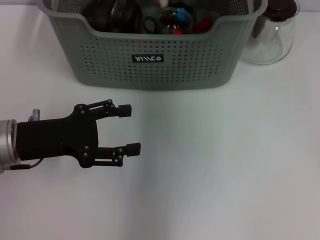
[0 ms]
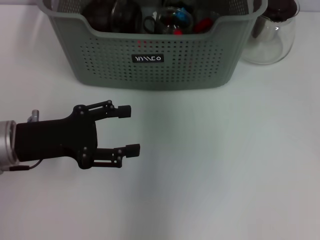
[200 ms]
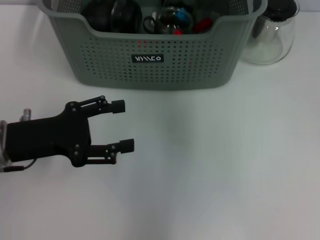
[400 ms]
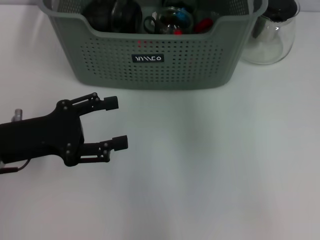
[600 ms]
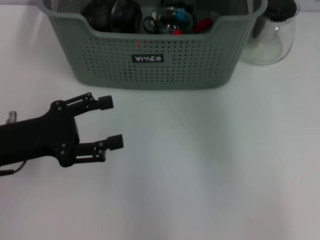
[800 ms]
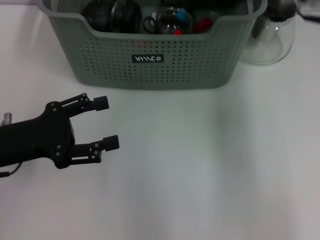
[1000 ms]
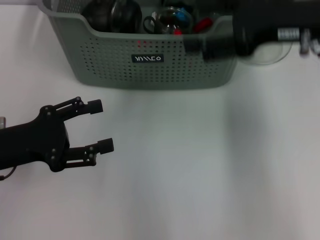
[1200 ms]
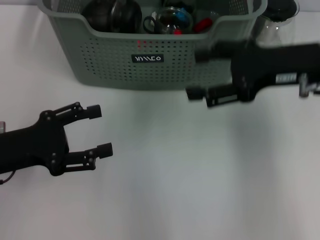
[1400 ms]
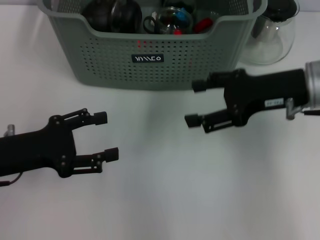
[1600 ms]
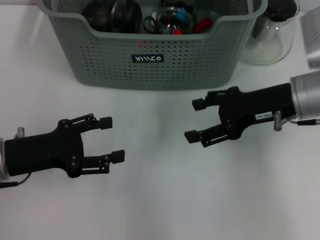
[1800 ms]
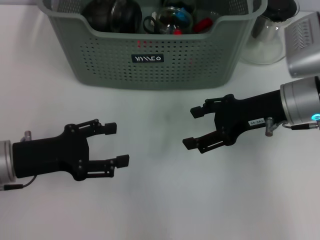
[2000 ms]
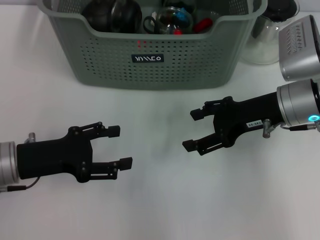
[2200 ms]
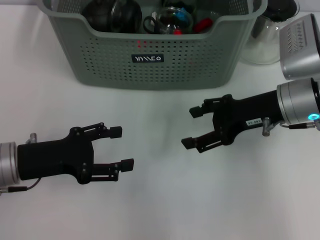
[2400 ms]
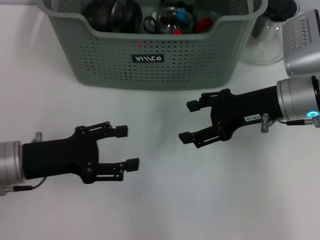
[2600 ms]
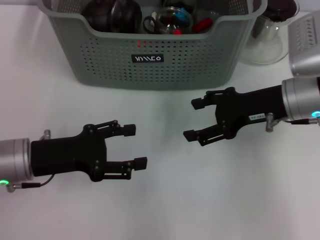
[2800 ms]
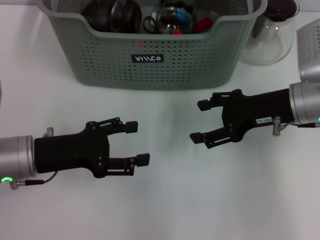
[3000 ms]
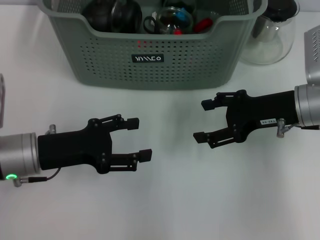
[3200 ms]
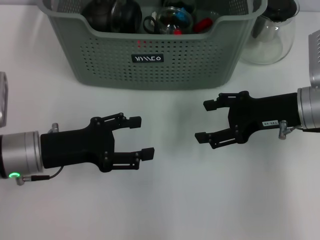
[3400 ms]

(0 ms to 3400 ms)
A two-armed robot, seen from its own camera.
Task of the whole recording: pick up the teacup on the table and place it into the storage bin, pick up the block on the table and place it into the storage bin.
0 ms - 1600 ms: The right gripper moves backward, to the right and downward, about 20 cm, and opens up.
1600 ms - 3400 ms: The left gripper moves roughly 5 cm.

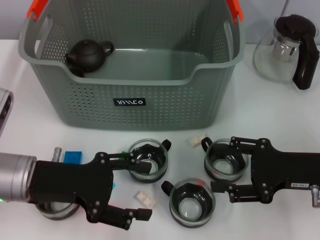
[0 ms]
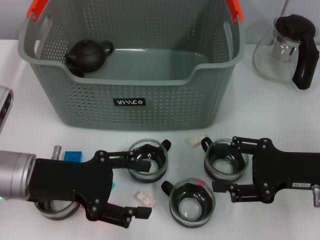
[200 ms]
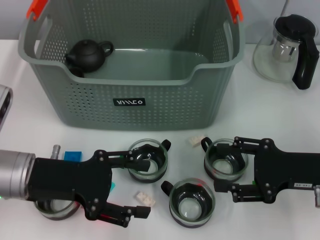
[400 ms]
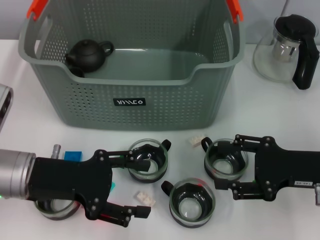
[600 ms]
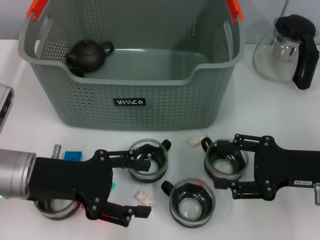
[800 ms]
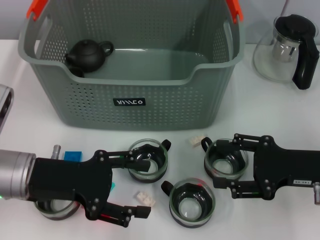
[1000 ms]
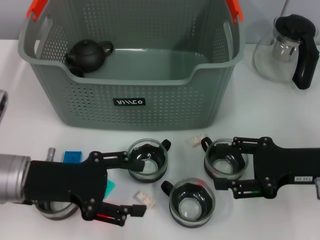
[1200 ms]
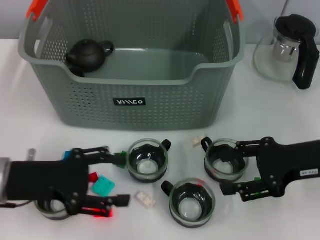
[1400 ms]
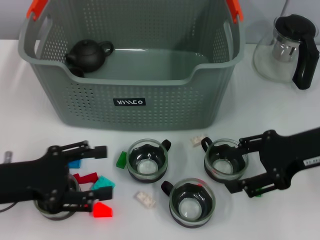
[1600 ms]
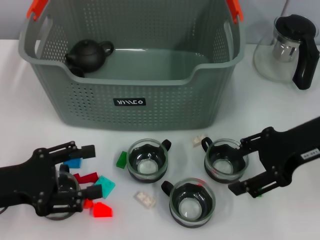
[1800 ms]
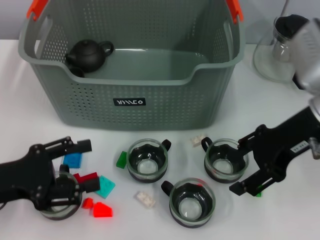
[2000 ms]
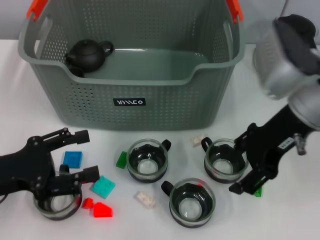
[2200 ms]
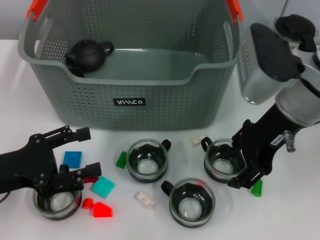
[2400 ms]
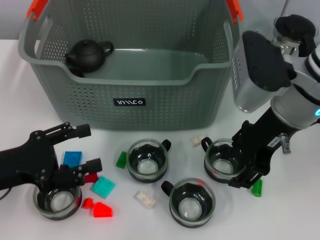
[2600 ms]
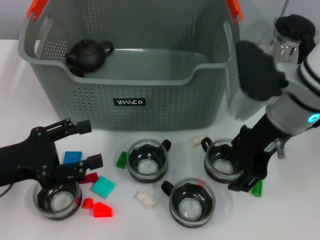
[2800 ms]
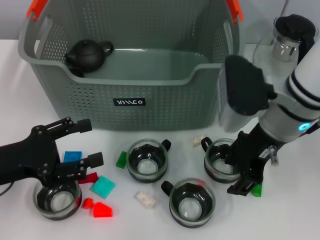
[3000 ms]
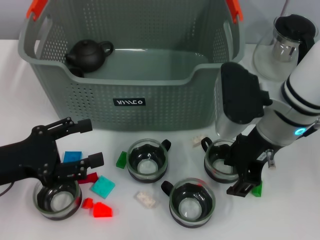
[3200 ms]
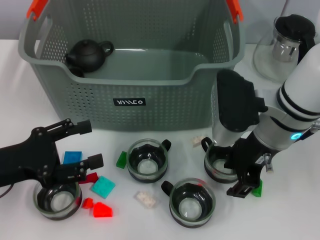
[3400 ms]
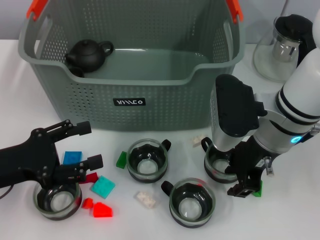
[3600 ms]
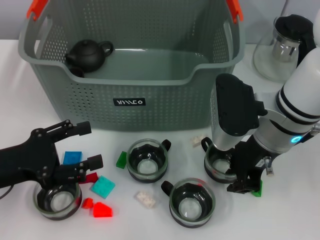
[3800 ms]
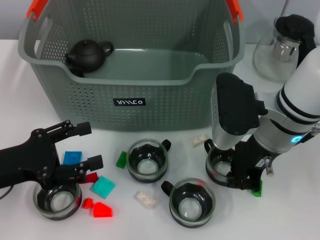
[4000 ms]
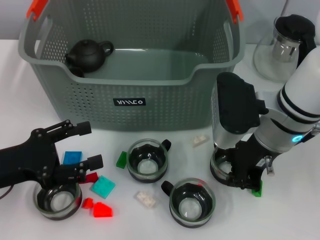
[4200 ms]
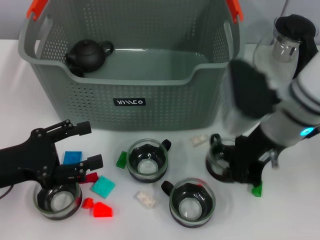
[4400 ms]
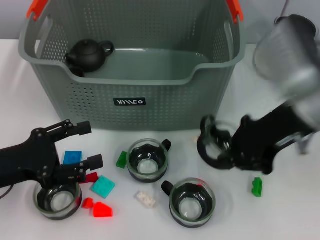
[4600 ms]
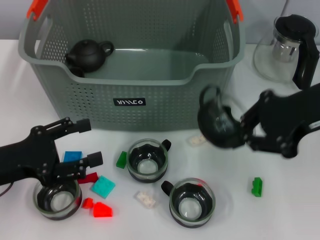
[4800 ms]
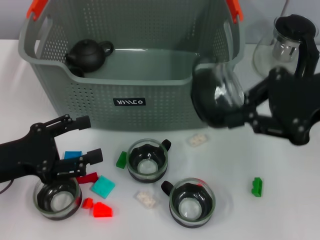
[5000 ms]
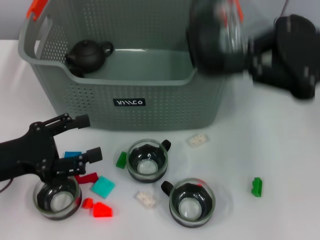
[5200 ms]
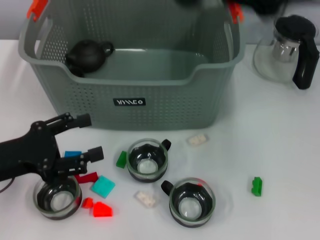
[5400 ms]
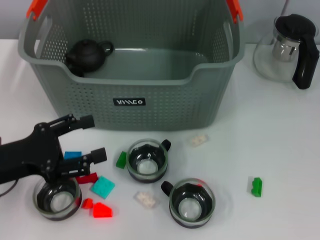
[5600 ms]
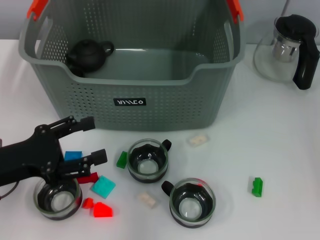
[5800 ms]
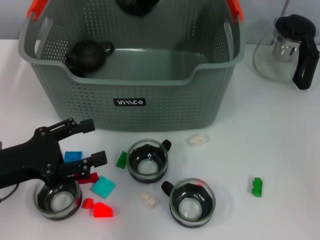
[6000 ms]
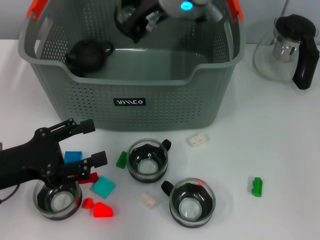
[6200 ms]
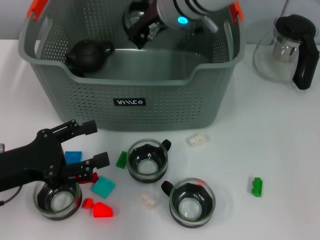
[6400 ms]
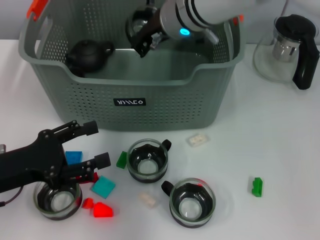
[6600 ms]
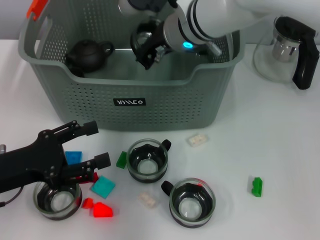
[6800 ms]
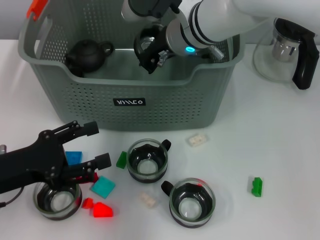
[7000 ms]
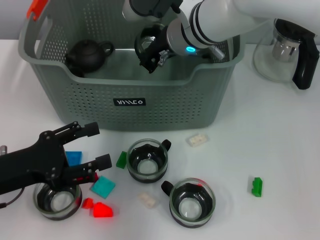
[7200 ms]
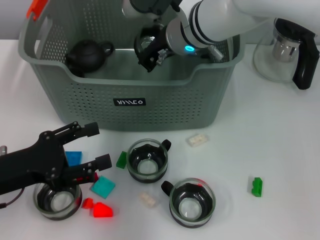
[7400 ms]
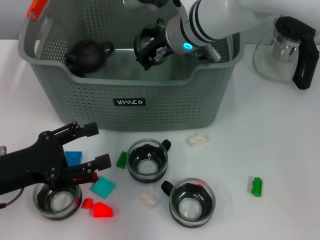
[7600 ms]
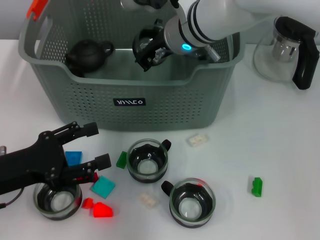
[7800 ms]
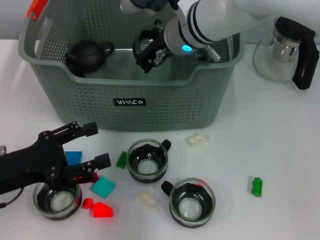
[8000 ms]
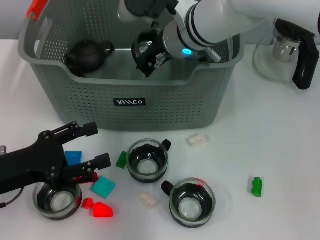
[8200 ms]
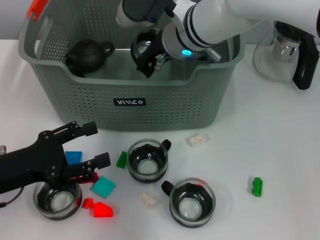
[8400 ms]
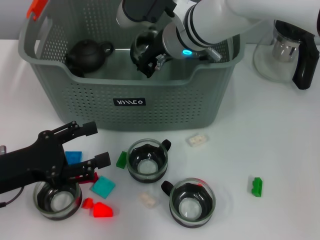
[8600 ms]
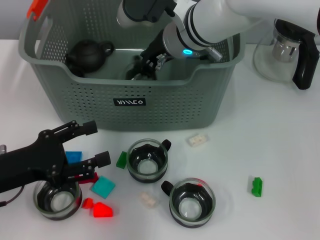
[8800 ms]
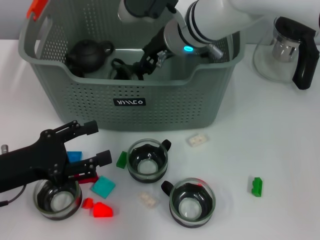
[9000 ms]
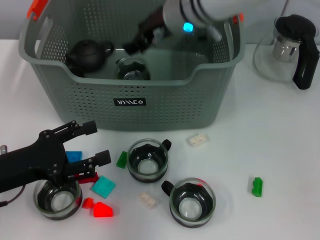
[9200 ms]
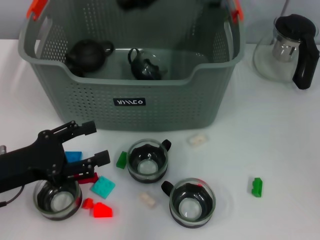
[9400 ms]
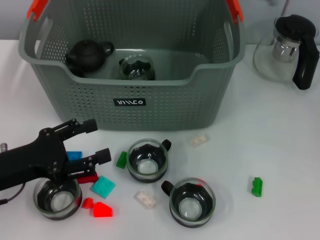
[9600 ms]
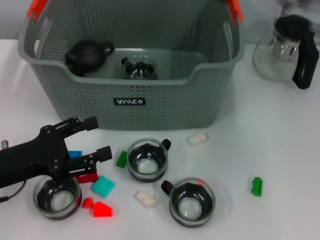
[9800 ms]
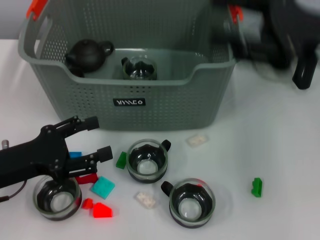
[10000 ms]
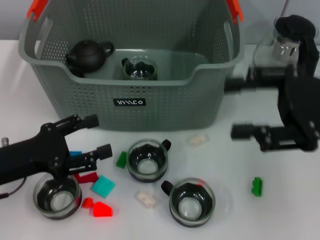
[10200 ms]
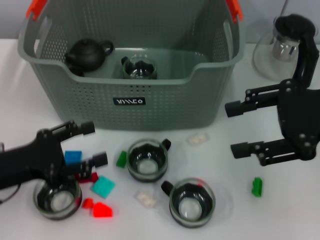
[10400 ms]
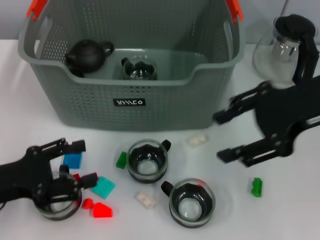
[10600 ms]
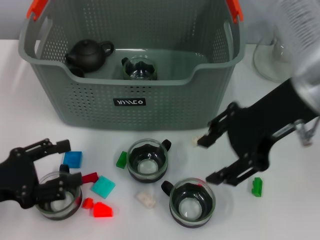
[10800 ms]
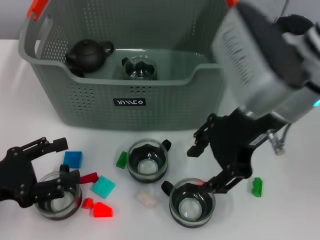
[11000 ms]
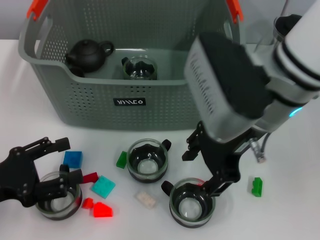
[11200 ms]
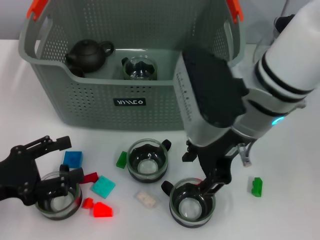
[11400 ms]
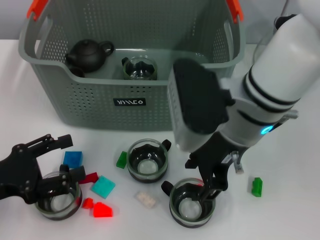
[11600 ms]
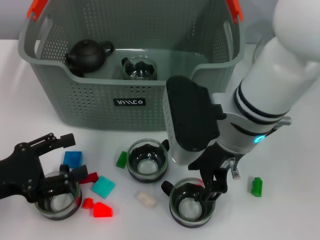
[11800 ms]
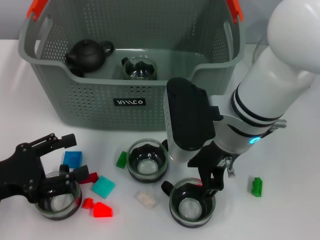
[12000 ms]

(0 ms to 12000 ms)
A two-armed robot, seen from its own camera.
Task of the whole recording: pick up the teacup on the table and place it into the storage bin, pick up the block on the table and place it into the storage bin.
Step, 0 ms - 4000 ms: Grasp the cup with right gripper.
Step, 4400 ms - 9400 ms: Place the cup in the storage box with right gripper.
0 ms - 1600 ms: The right gripper goes some 5 cm upward. Meanwhile the left gripper goes some 5 cm to the left.
1600 ms - 3000 ms: The right gripper moves to the left, roughly 10 cm.
3000 ms - 4400 ms: The right gripper closes.
4400 ms - 6000 ms: The right gripper shifts about 20 cm upward, to the left and forward.
6000 ms - 7600 ms: The right gripper heads downward, covering approximately 10 cm.
7600 ms - 9000 ms: The grippers stay close to where they were, moving slightly.
9000 ms - 10400 ms: The right gripper goes roughly 25 cm to the right and backward, and opens its fingers.
10400 ms - 12000 ms: The right gripper is displaced to the left by approximately 20 cm.

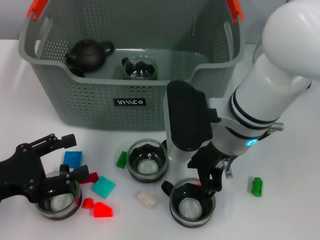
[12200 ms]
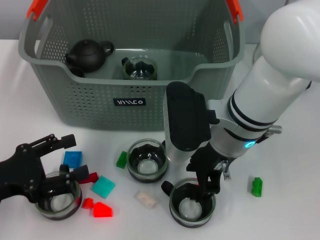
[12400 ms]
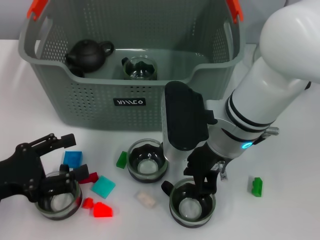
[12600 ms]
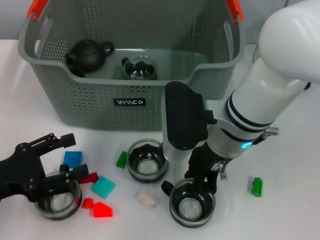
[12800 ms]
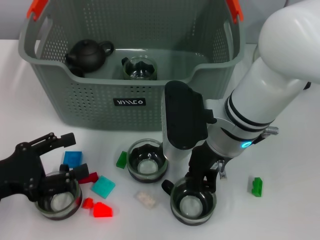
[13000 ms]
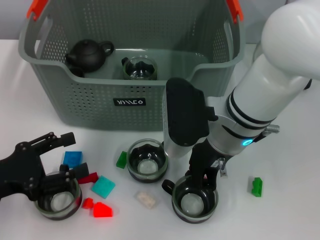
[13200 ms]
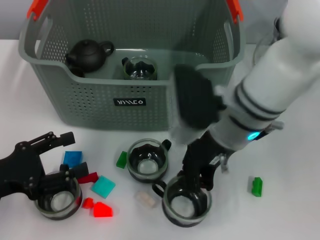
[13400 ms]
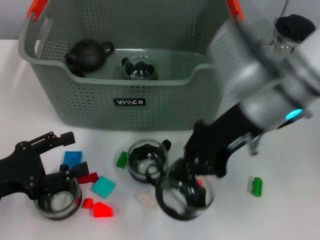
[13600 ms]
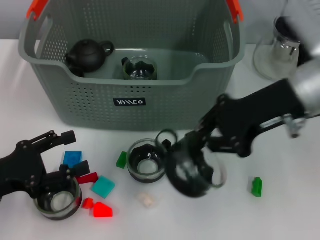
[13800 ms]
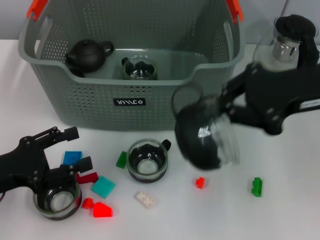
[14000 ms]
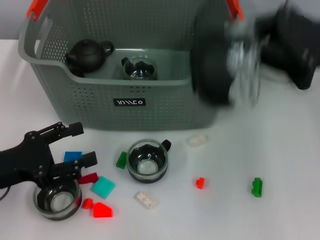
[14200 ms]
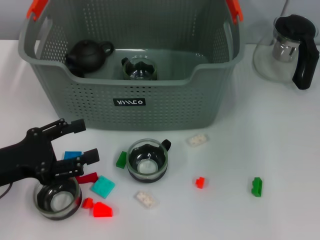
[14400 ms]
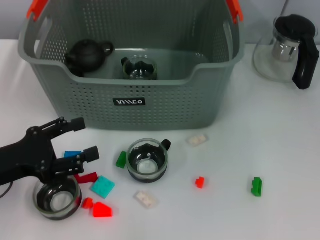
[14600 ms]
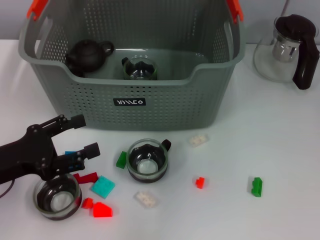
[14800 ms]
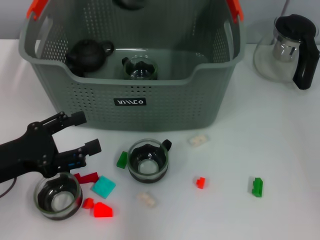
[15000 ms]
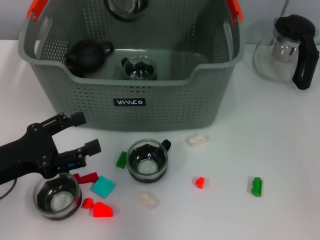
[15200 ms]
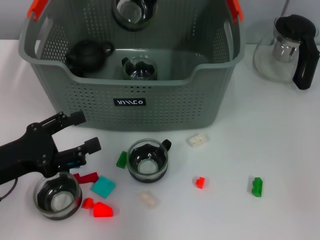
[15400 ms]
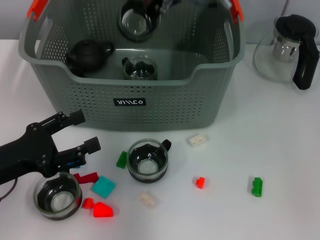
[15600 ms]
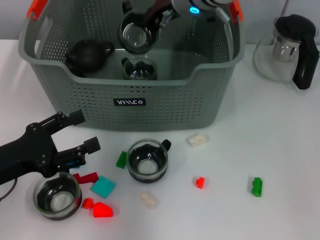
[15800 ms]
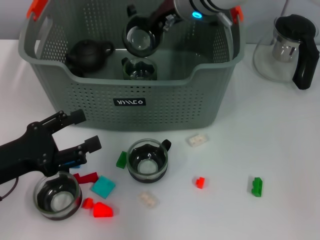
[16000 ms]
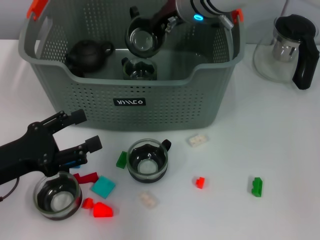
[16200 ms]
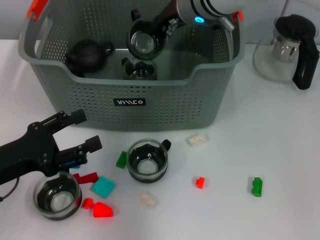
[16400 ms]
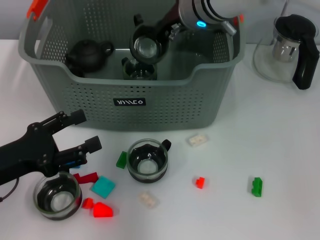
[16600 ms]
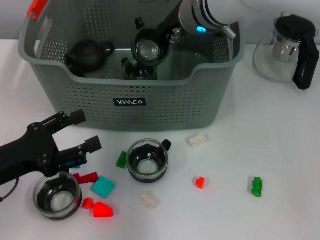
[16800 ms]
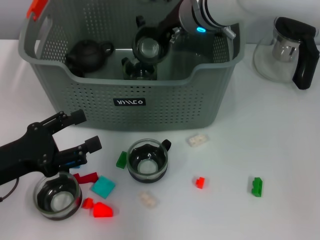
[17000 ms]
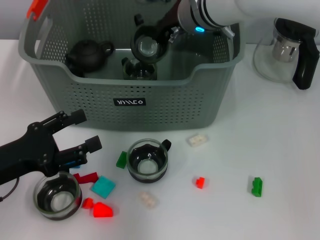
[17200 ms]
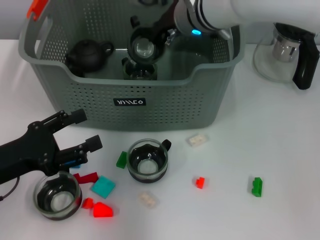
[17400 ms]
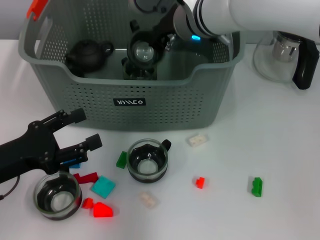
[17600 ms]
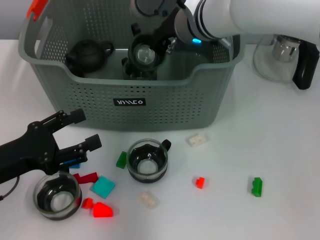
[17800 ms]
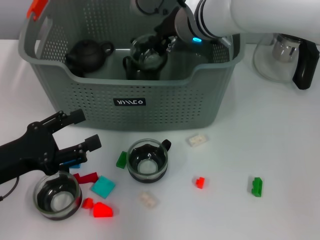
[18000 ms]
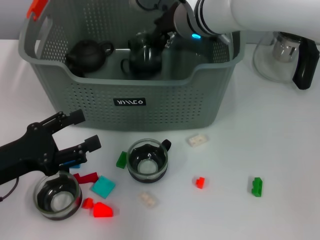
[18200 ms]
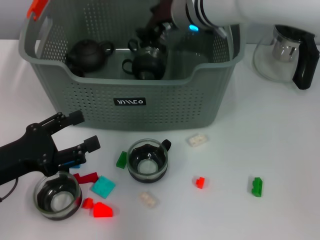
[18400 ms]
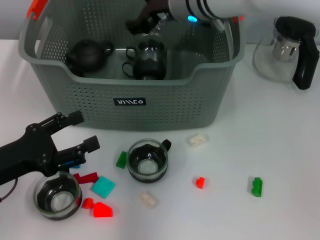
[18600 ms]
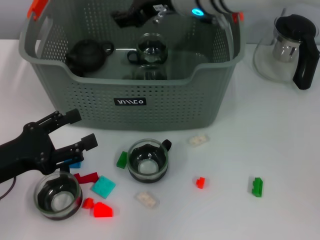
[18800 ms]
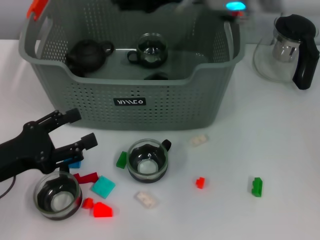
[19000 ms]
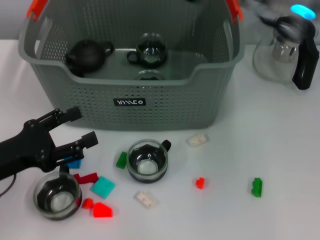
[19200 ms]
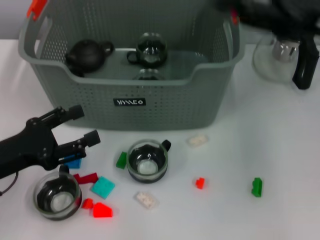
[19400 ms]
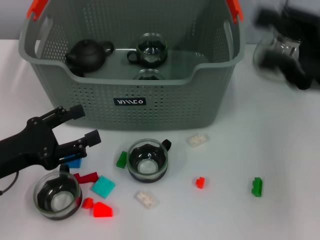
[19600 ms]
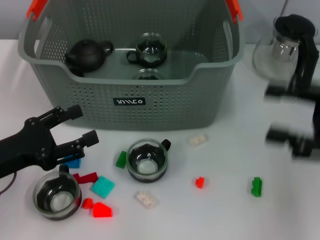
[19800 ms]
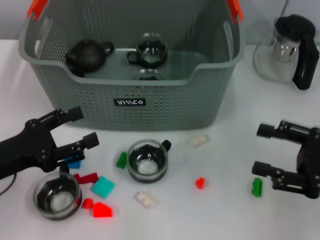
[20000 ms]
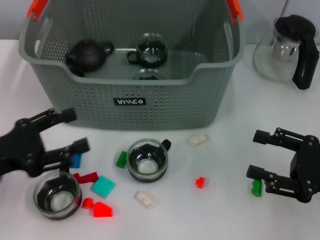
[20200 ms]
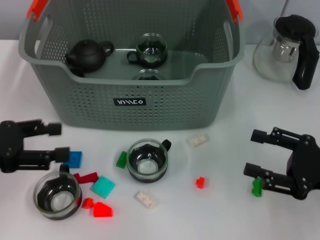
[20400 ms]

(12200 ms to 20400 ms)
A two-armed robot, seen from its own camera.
Task of the whole recording: pick up the teacup on the table and place it into the storage bin, pick up the block on the table and place it into the storage bin.
Step, 13200 ms - 19000 ms: Place the cup in the storage box with right gripper.
12200 ms - 13800 ms: The right gripper heads to the right and upward, covering some 10 cm, and closes its fingers.
13800 ms - 15400 ms: The right gripper heads to the left, forward and upward, covering some 20 cm.
15400 ms - 17200 ms: The right gripper is displaced downward by about 5 cm.
17200 ms - 18800 ms: The right gripper opens.
18800 ms - 20400 ms: The left gripper travels upward by about 5 cm; the right gripper shifts about 35 cm to the right, backward and downward.
